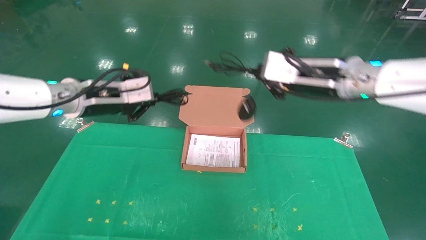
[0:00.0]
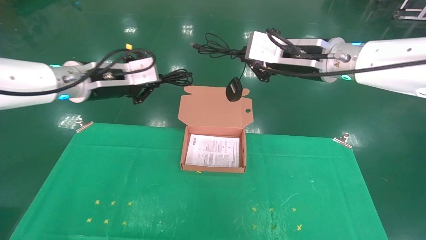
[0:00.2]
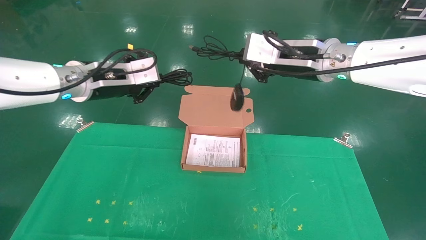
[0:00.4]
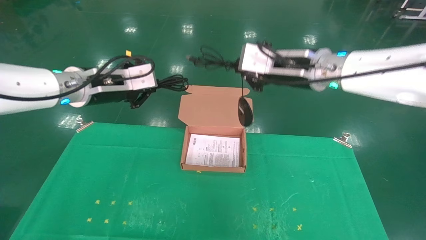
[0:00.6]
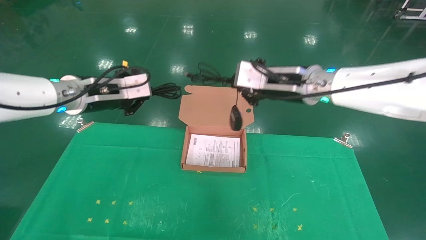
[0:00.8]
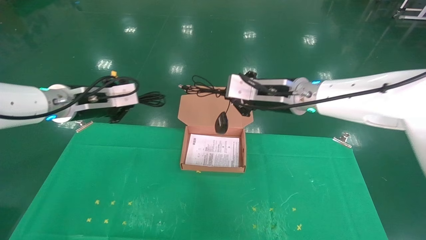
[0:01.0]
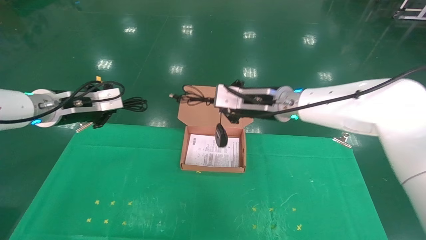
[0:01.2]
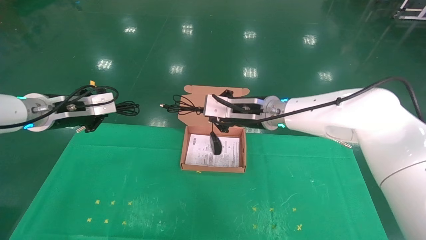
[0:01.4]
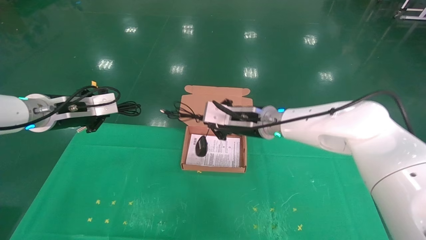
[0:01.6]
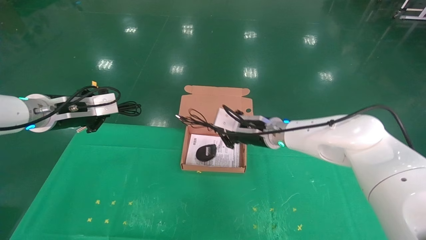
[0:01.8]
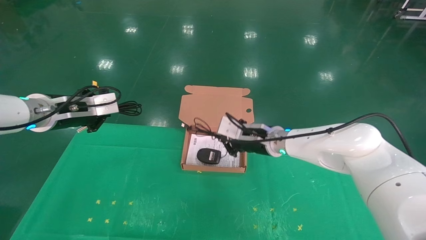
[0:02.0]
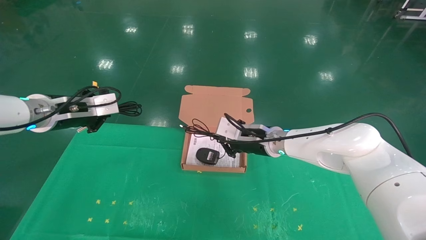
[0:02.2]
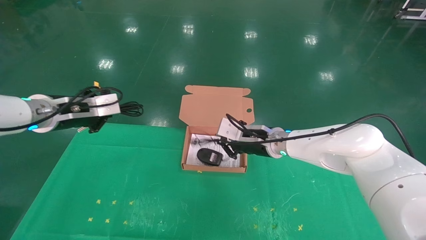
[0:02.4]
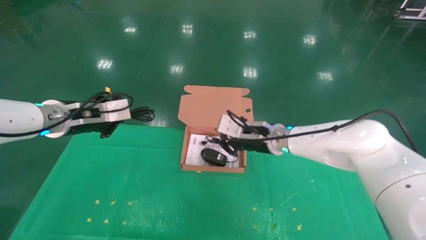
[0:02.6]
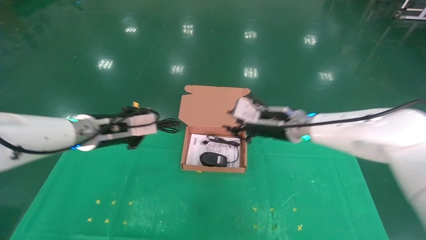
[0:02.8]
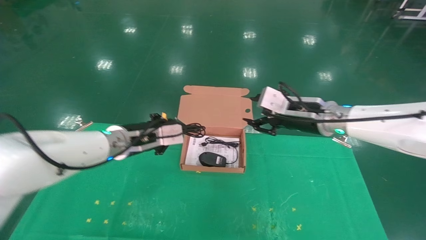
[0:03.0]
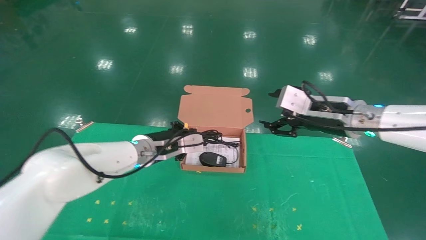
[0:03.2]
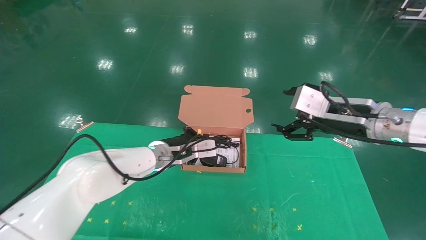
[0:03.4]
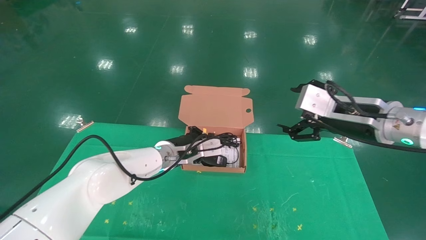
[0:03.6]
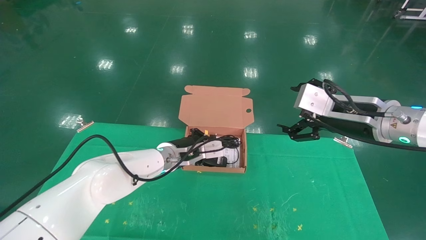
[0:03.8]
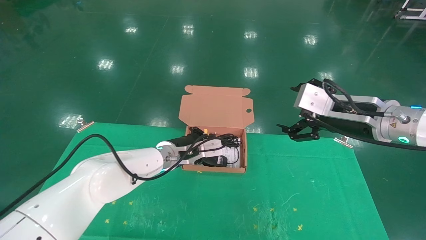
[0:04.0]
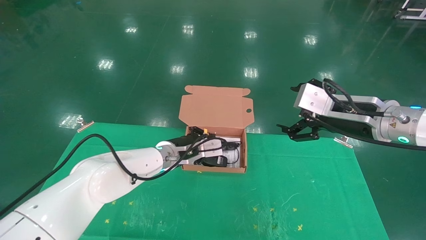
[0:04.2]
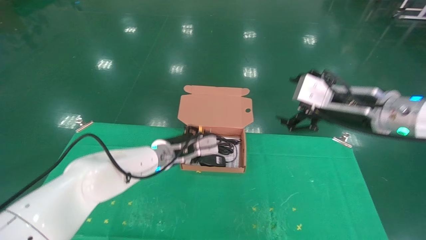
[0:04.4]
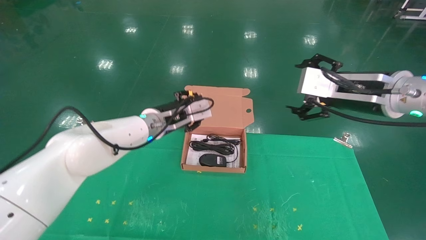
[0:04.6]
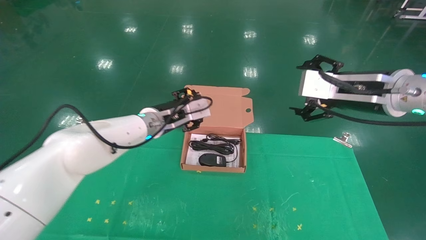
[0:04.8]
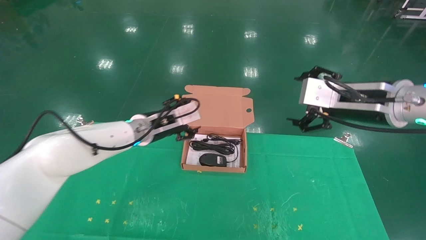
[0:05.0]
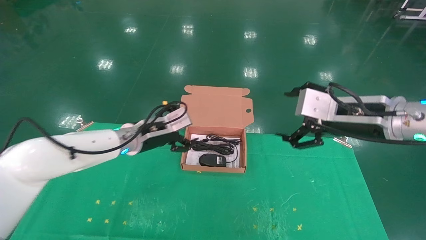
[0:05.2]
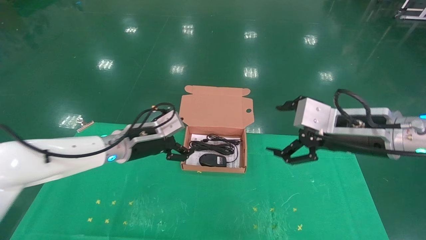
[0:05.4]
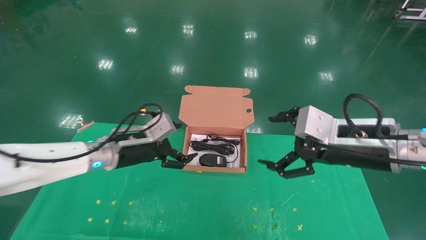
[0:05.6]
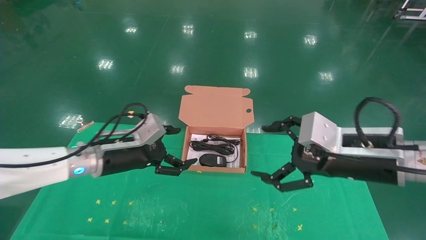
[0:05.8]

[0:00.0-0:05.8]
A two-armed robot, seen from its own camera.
Task of the whole recording: grasp data cable left put into box grasp mouse right put into box.
Step, 0:00.0 to 0:03.8: Place the mouse and power cord into the box.
0:00.0 to 0:01.4: The right gripper shifts about 15 cm to the left, downward and forward. The left gripper moves to the left, about 5 cm.
0:01.4 to 0:02.8: The left gripper shifts about 10 cm to the right and downward. The right gripper moves to the right, some 5 cm.
0:02.8 to 0:04.4: The left gripper moves to the right, forward and downward, approximately 15 cm. The right gripper is displaced backward, to the right and upward by approximately 15 cm, and opens up.
0:04.4 to 0:05.8: The right gripper shifts roughly 10 cm downward and backward, while the left gripper travels to the left and backward by approximately 15 cm, and opens its fingers.
